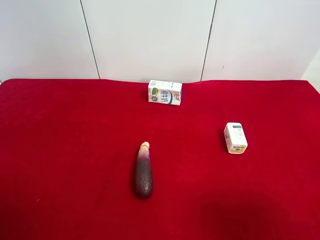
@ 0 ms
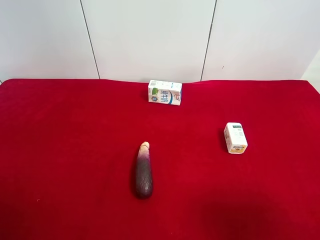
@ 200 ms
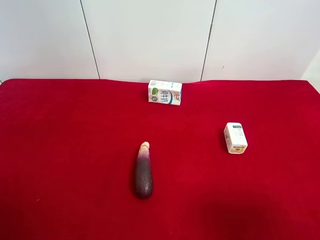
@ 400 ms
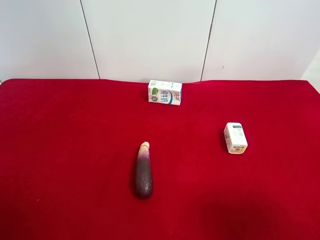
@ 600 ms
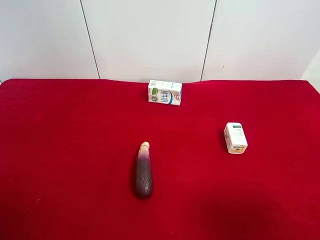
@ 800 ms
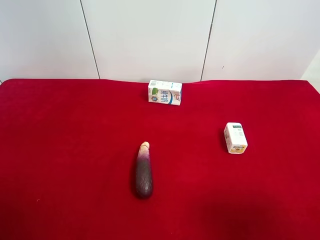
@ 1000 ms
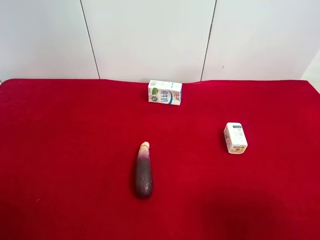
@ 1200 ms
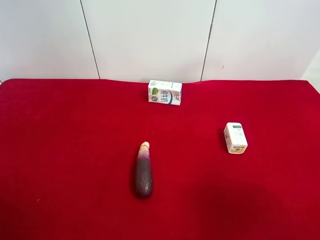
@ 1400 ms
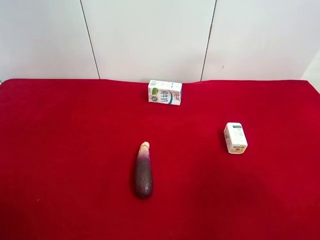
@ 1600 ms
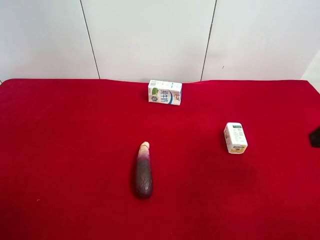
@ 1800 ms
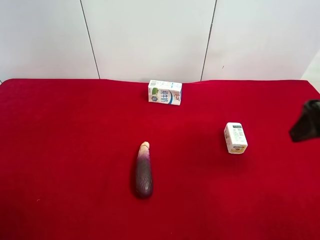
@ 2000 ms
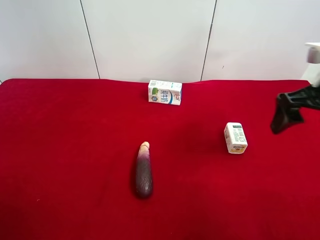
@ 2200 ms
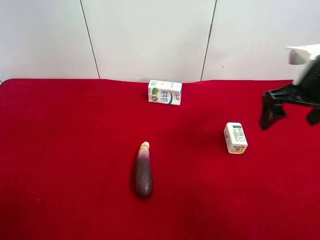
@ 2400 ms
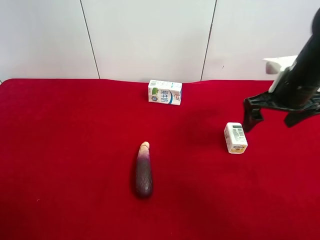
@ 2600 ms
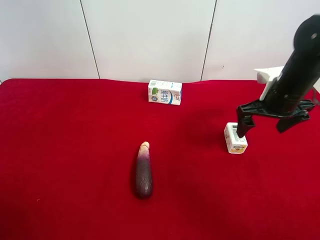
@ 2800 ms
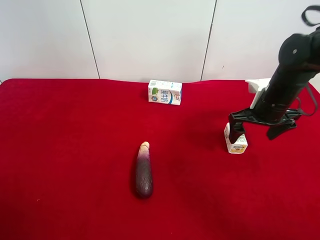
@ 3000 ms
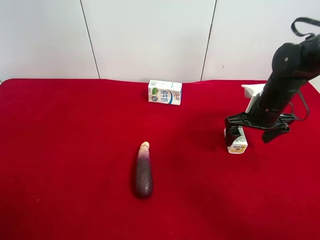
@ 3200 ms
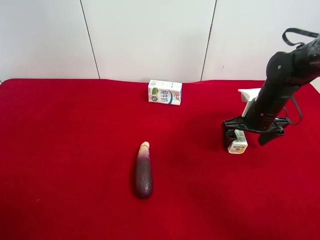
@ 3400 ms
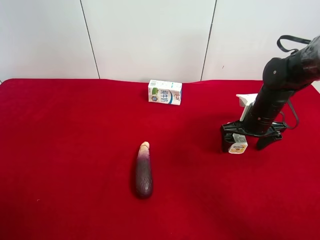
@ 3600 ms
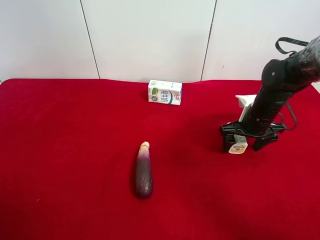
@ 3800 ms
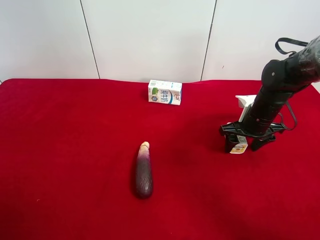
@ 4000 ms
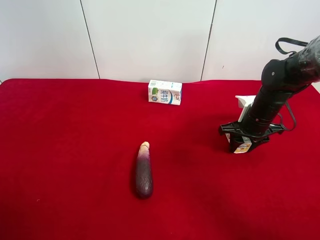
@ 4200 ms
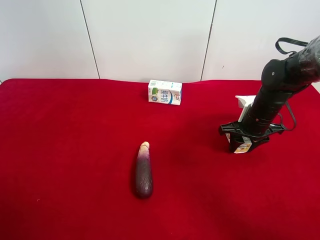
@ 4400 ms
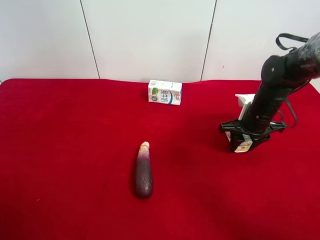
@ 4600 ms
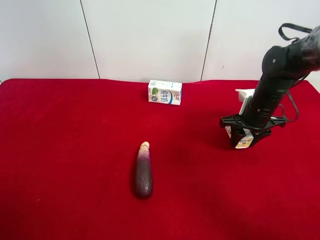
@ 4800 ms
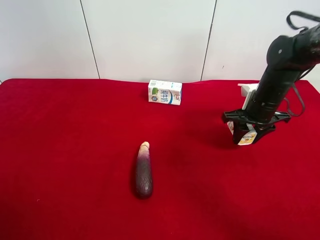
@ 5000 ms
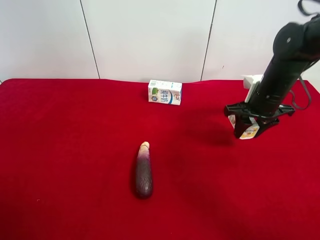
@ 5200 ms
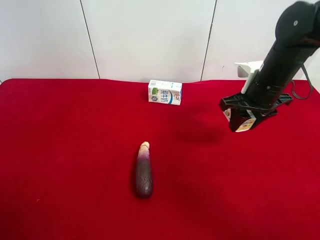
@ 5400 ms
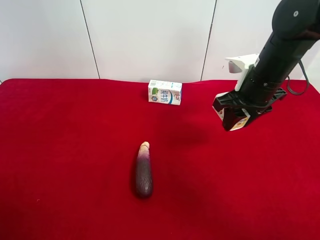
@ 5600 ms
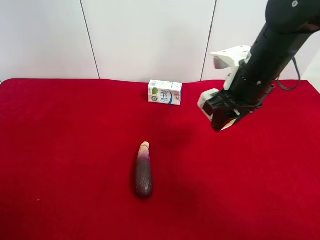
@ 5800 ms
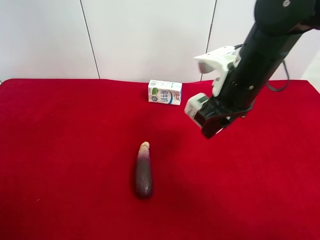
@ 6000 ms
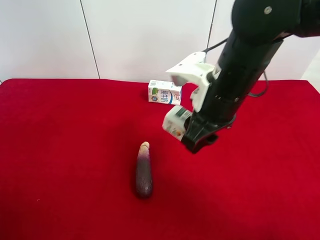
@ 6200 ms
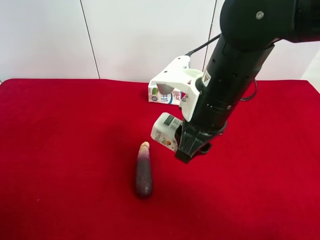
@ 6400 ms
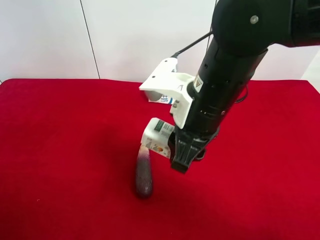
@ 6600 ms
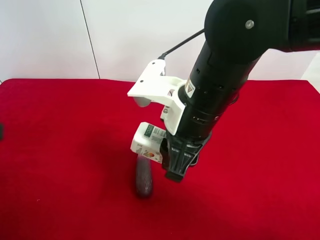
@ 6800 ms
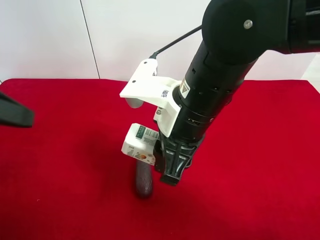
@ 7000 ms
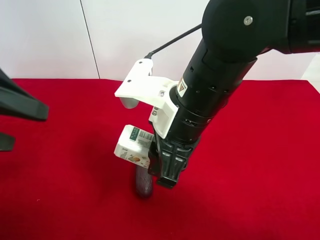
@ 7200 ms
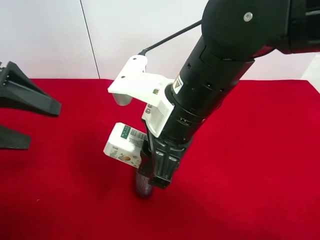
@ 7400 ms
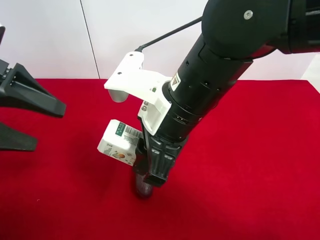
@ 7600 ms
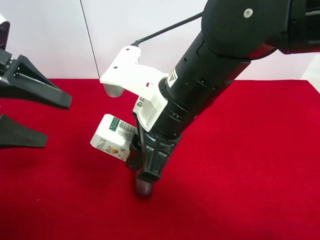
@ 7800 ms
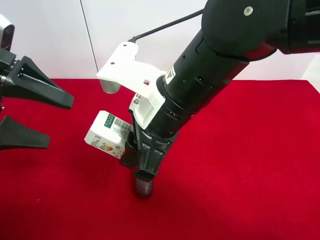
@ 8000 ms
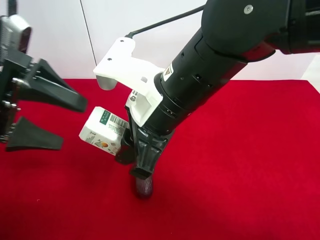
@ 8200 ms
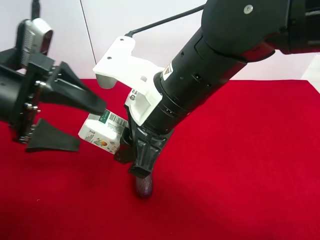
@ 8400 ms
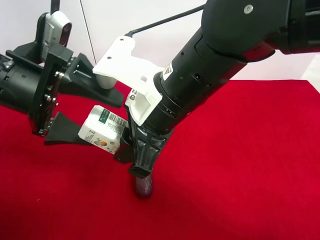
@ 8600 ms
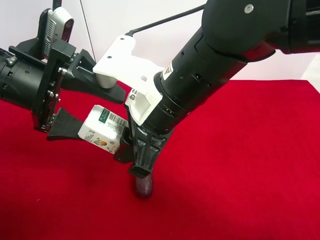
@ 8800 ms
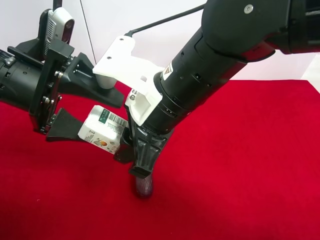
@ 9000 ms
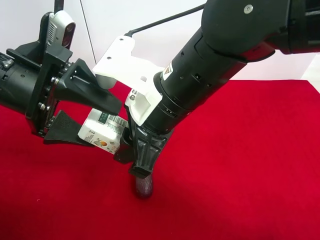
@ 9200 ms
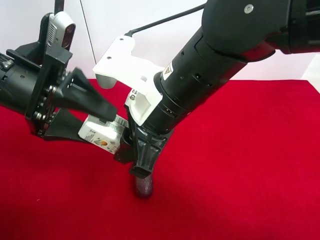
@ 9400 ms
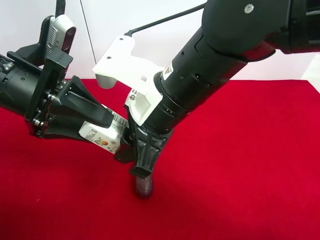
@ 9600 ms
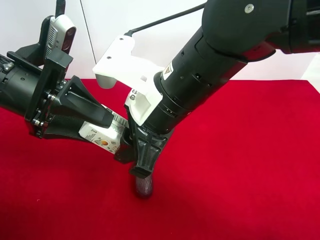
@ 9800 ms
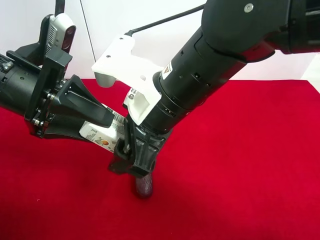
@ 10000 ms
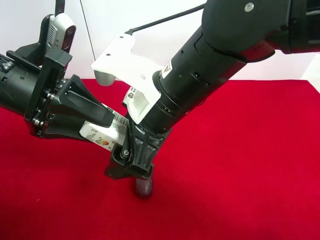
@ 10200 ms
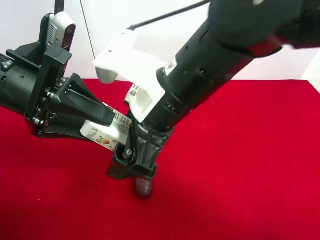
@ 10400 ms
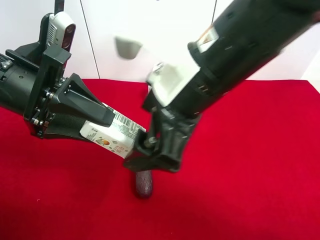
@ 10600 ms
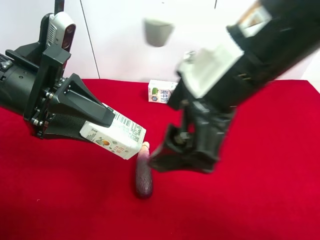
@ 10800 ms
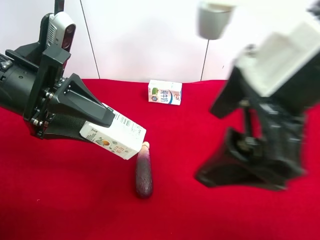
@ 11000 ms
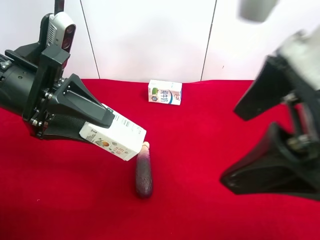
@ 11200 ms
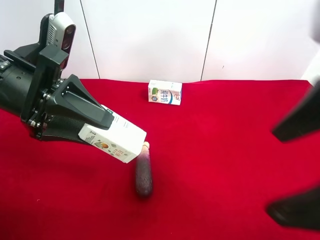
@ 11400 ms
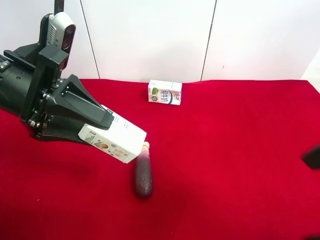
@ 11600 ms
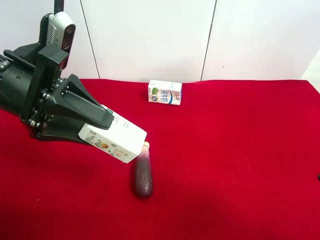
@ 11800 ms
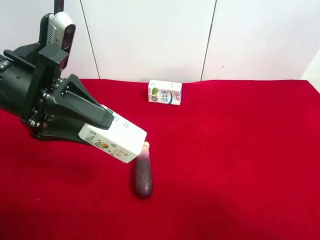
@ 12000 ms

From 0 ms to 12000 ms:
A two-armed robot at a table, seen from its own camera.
Task of the whole recording: use the right gripper to pick up the item and transfer it from the right gripper to the left gripper.
Step, from 0 ms to 4200 ms: Use the right gripper to grab the square chewing gum on the right side of the table.
Step, from 4400 ms to 10200 ms: Pass the square chewing gum to the left gripper.
From 1600 ms to 3000 ms: The right gripper shifts roughly 30 cm forward and downward.
From 3000 ms to 4400 ms: The right gripper closes up.
From 4400 ms to 6000 ms: The right gripper is displaced upward, to the left and backward by some 20 cm.
From 6000 ms to 7600 ms: The left gripper moves forward, about 20 cm. The right gripper is displaced to the left and backward by about 10 cm.
From 7600 ms to 9000 ms: The left gripper travels to the right by approximately 5 cm.
From 9000 ms to 10400 ms: The right gripper opens up, while the left gripper closes its fingers.
From 10400 ms to 12000 ms: The right gripper goes approximately 30 cm to the right and backward.

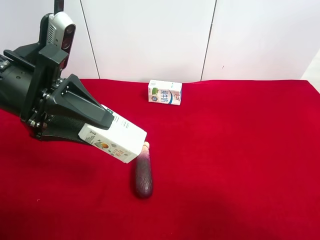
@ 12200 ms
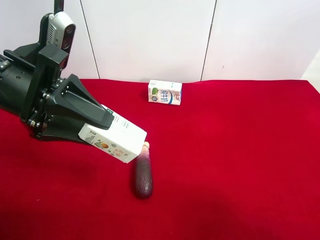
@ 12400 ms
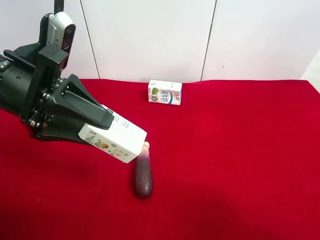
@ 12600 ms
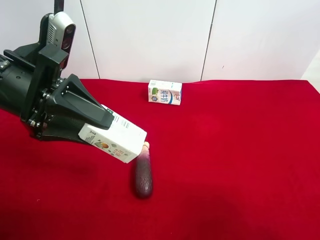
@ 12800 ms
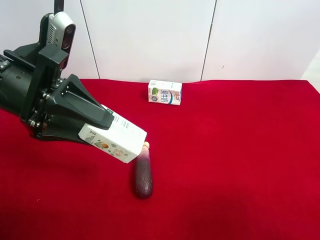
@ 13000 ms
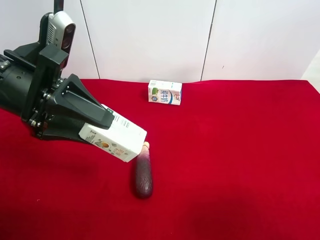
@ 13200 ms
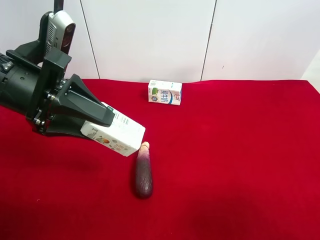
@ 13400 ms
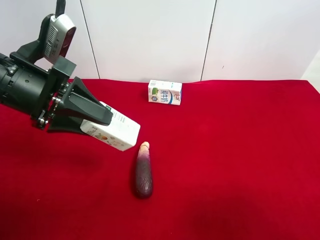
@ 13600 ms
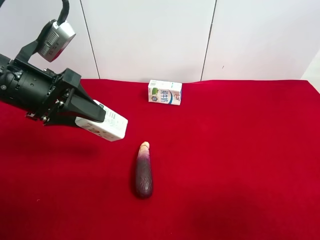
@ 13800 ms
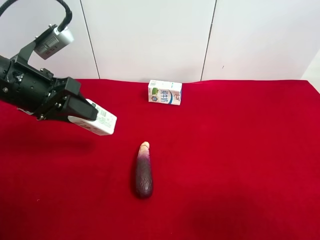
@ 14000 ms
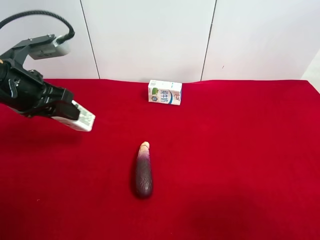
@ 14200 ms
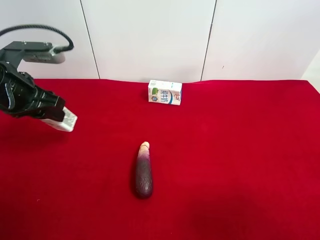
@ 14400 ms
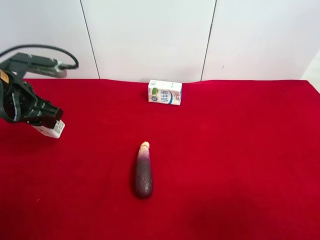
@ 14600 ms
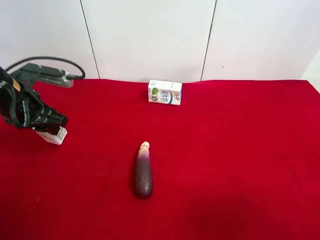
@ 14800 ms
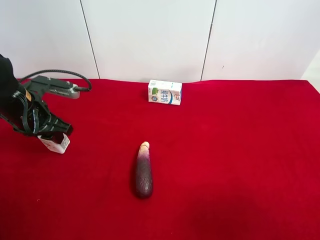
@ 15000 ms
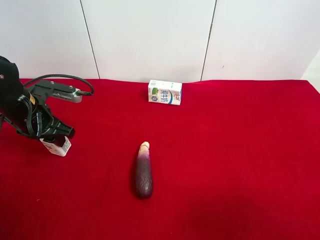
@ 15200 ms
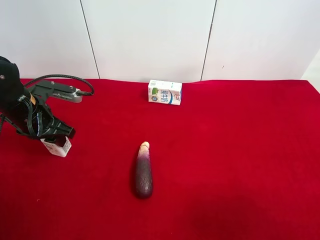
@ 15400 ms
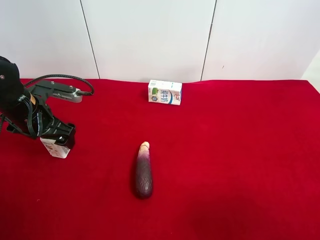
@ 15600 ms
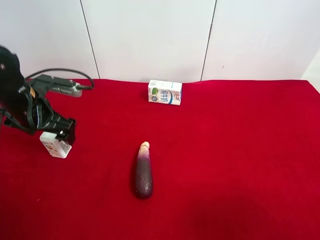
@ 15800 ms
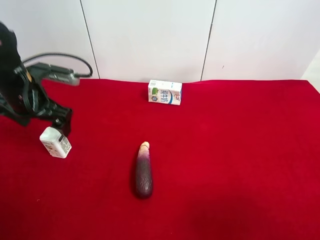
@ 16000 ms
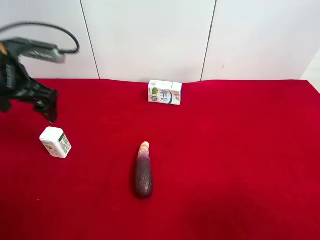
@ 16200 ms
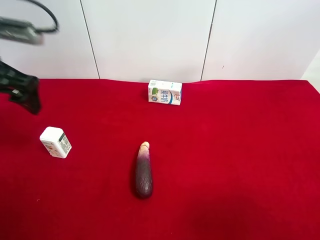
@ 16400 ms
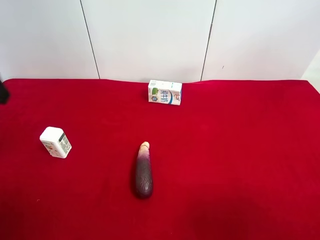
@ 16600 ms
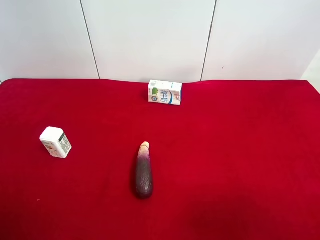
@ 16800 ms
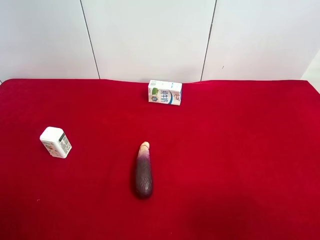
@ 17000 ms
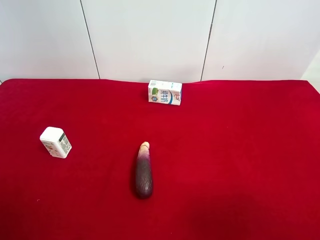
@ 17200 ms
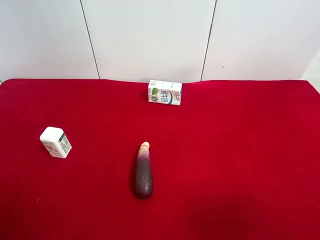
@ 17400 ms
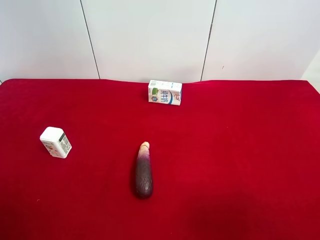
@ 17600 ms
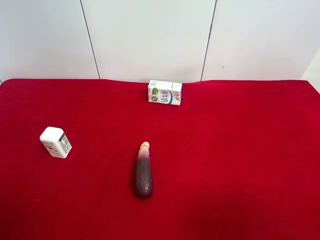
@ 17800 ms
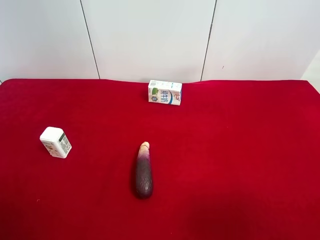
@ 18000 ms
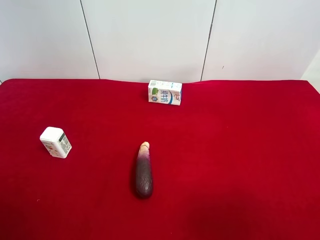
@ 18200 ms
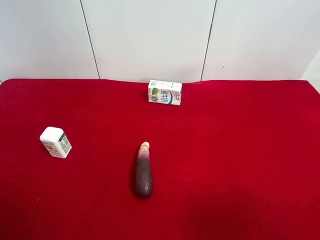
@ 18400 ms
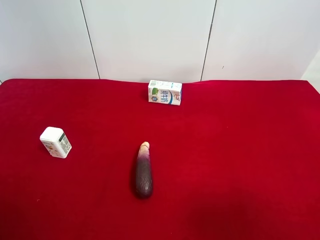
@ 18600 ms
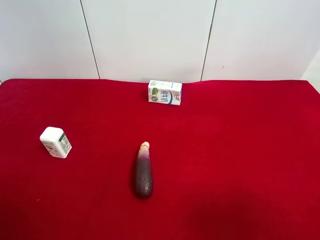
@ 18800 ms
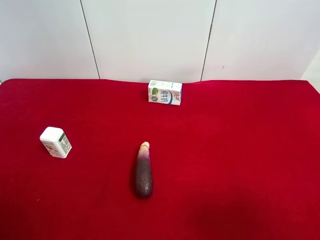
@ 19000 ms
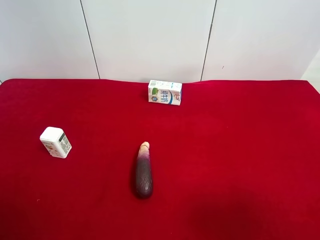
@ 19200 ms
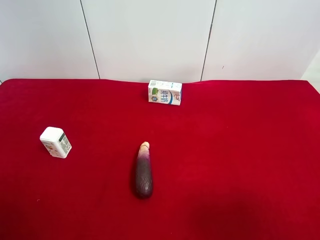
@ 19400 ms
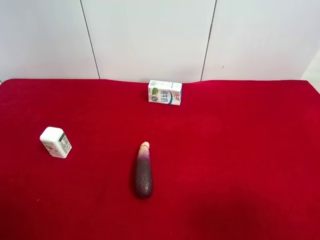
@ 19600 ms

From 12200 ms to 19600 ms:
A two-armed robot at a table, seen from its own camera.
Task of the whole recording: use the right gripper to pick up the item and transfer it from the right gripper to the left gripper.
Step, from 12200 ms to 15600 ms: The left gripper places square chewing gum on the left side of the table.
From 13600 ms to 15200 ms: The left gripper heads downward, forward and to the left, covering about 15 cm.
From 15200 ms to 16600 ms: The left gripper shifts about 20 cm upward and backward, and opens.
